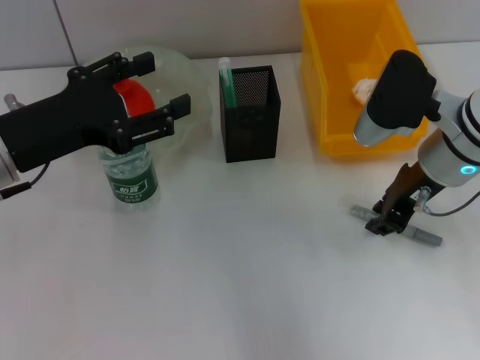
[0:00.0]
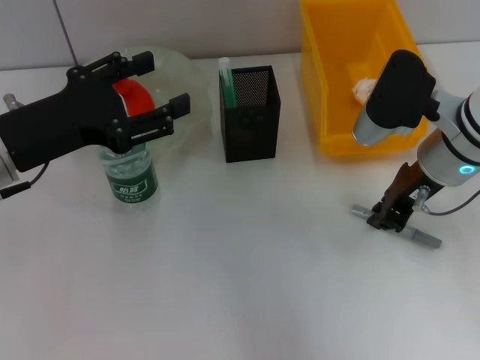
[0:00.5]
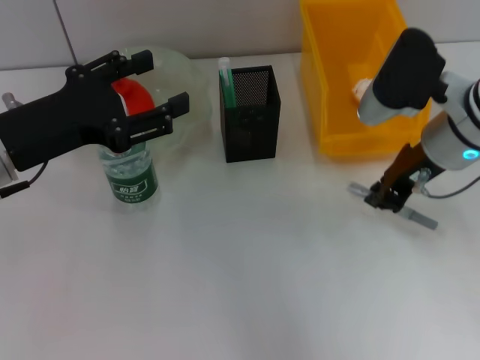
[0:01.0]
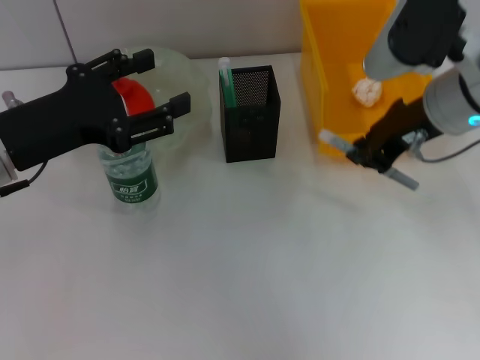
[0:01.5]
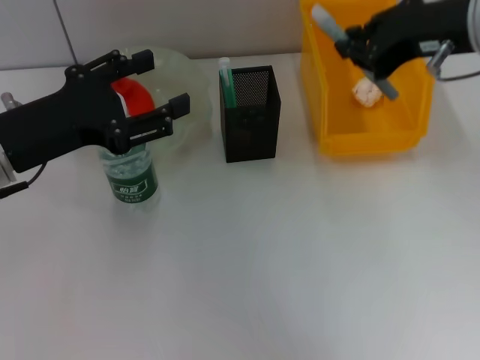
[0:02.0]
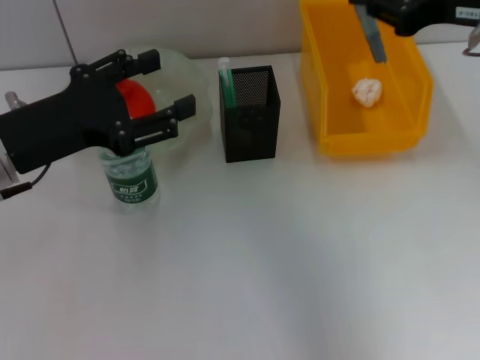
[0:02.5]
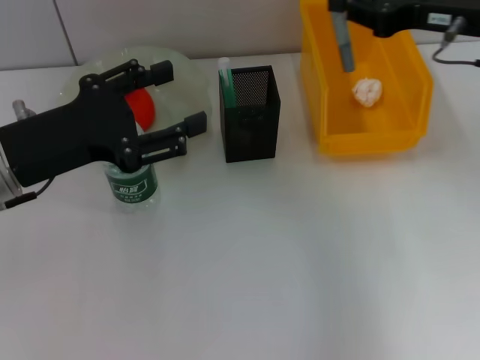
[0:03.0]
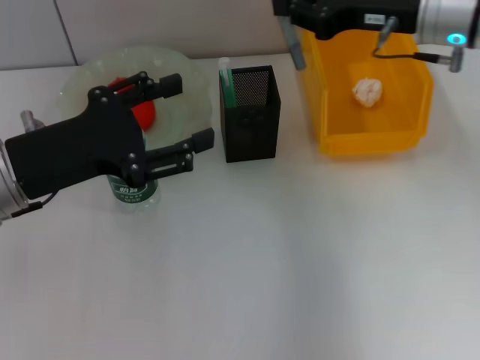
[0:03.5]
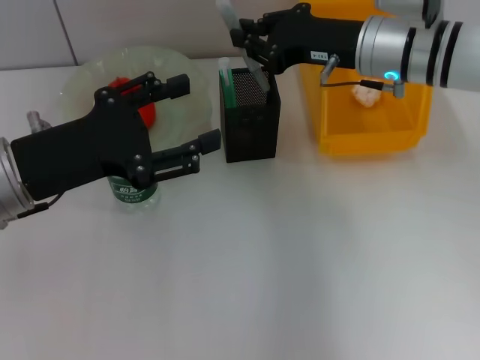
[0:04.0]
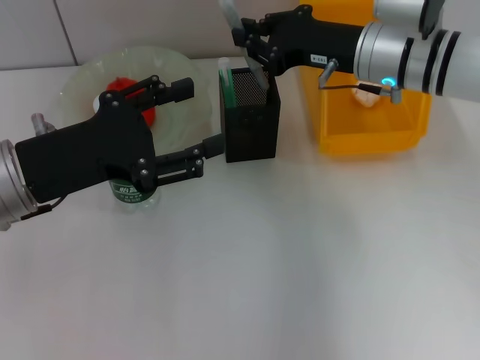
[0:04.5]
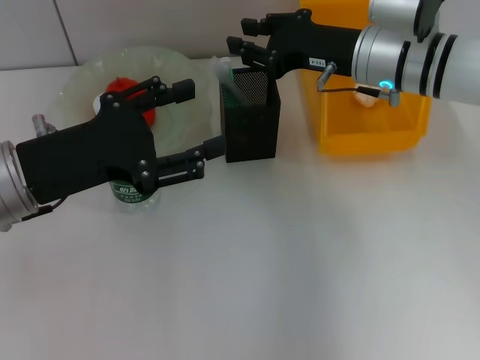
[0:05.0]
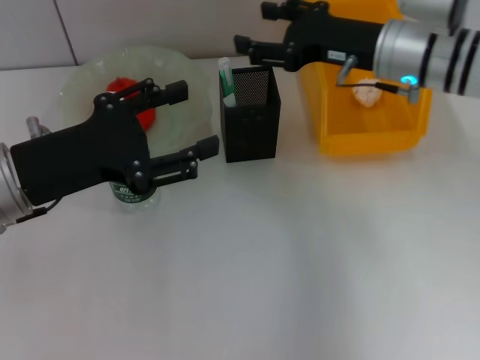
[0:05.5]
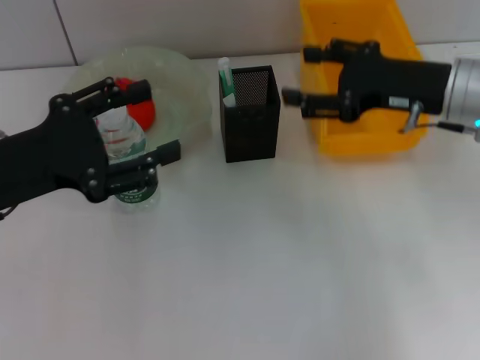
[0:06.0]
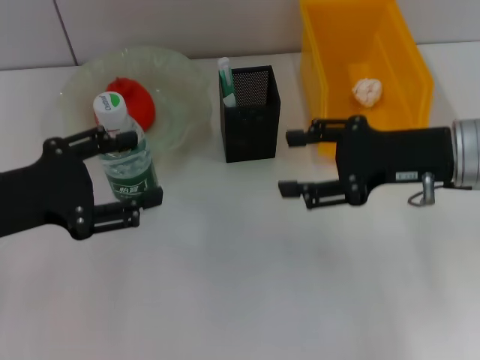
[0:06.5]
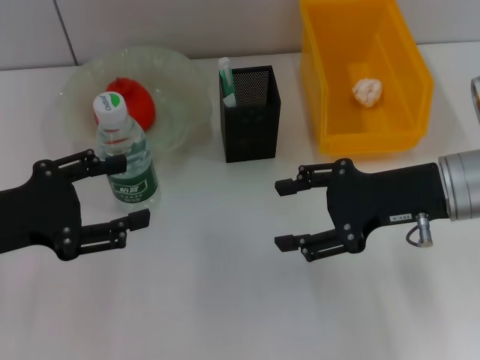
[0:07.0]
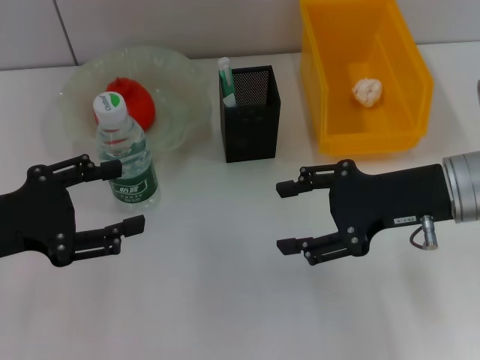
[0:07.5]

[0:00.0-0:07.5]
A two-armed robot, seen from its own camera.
Step, 0:01.0 to 0:05.0: Place the gray glue into the pen holder with the right hand.
0:00.0 to 0:02.0: The right gripper shifts about 15 cm upward.
0:02.0 to 0:04.0: The right gripper heads downward and forward, covering some 15 cm.
0:04.0 to 0:05.5: The right gripper opens up.
0:05.5 to 0:07.5: The right gripper moves backward, some 10 cm, while the left gripper travels to the left by roughly 5 cm.

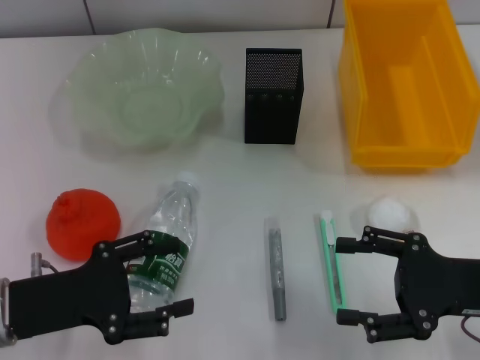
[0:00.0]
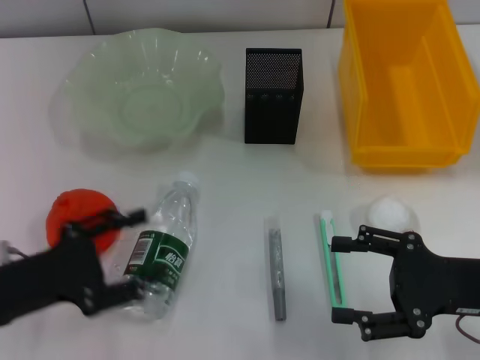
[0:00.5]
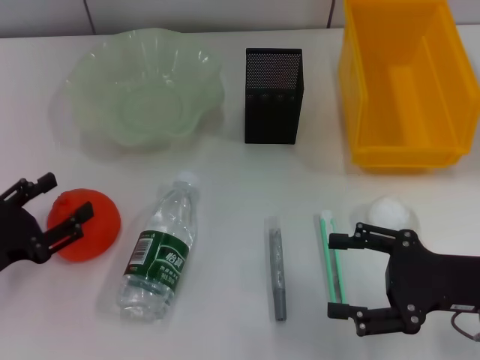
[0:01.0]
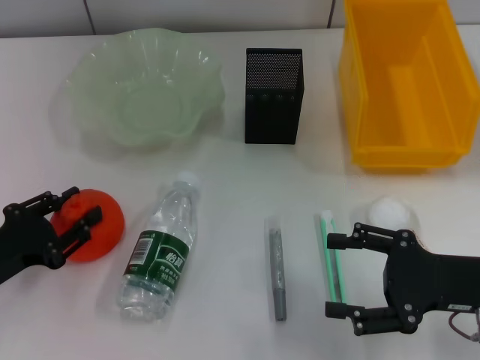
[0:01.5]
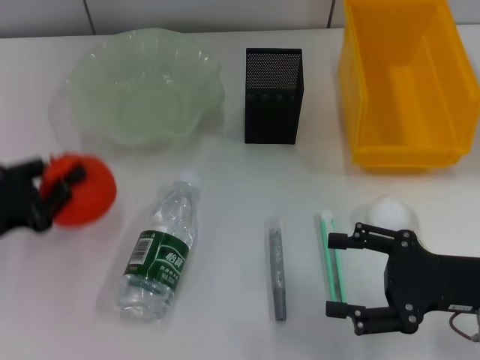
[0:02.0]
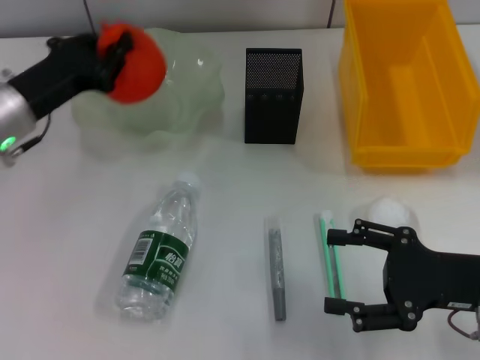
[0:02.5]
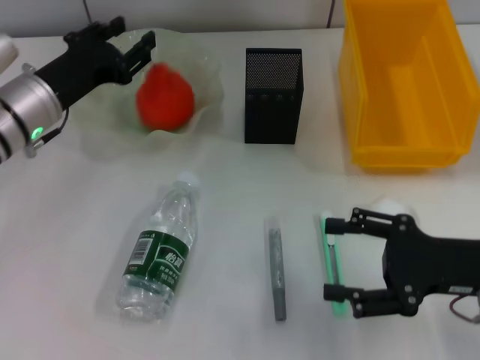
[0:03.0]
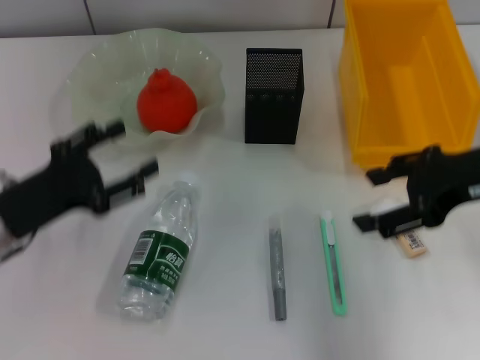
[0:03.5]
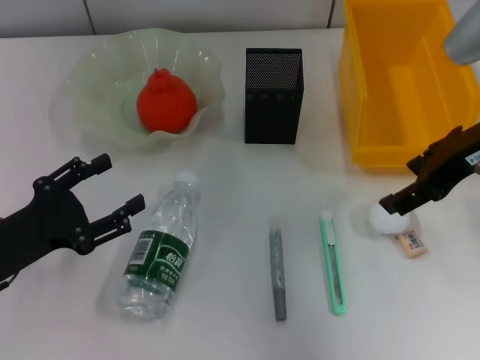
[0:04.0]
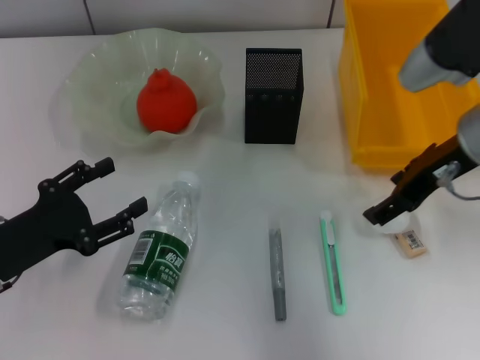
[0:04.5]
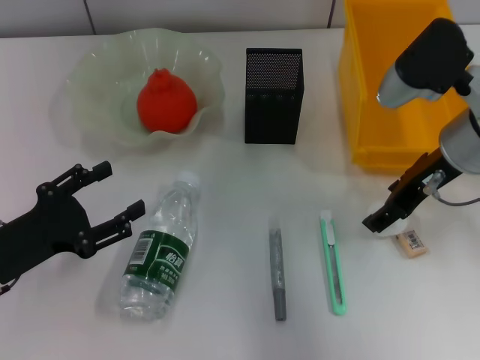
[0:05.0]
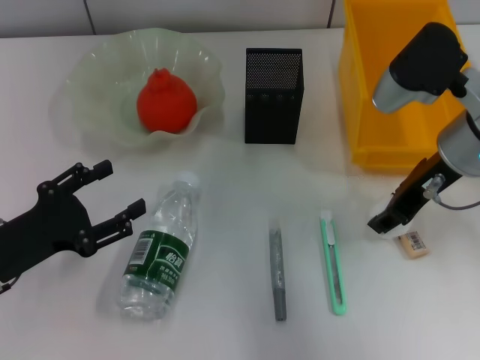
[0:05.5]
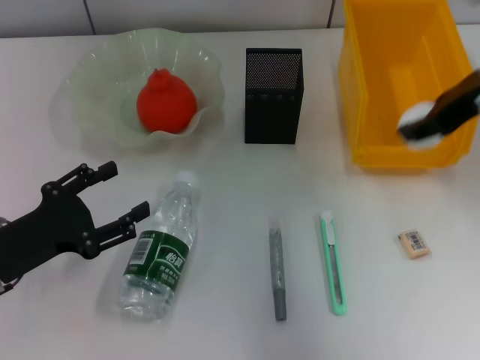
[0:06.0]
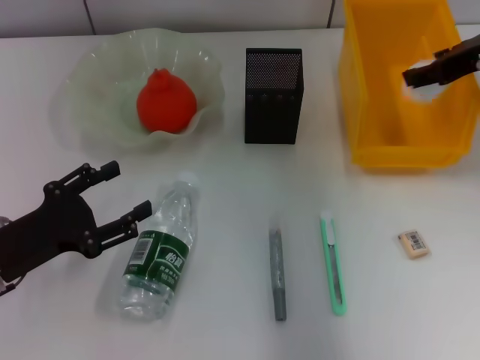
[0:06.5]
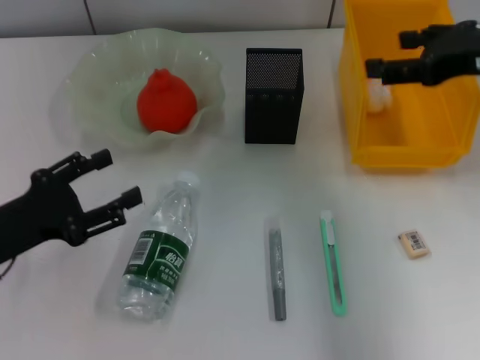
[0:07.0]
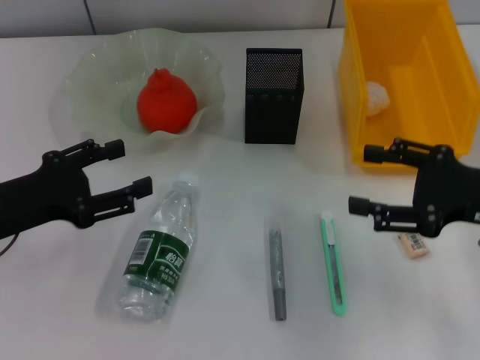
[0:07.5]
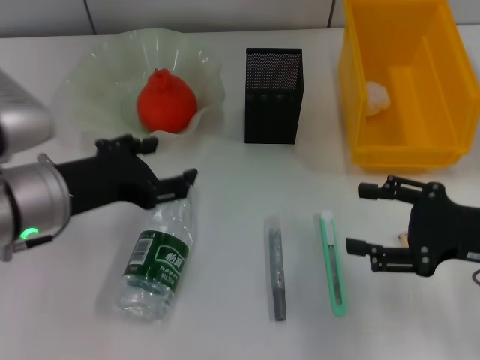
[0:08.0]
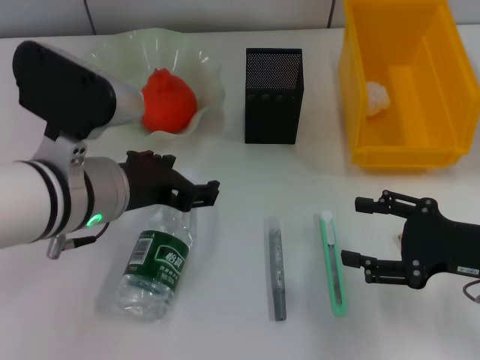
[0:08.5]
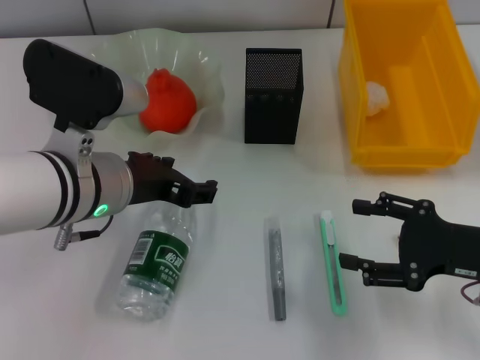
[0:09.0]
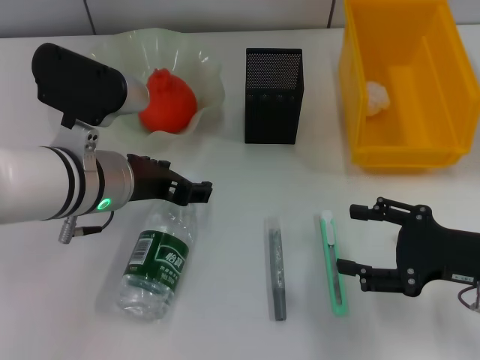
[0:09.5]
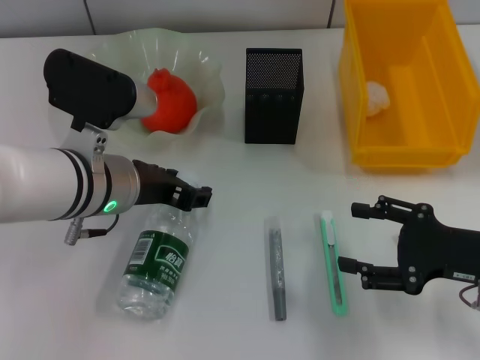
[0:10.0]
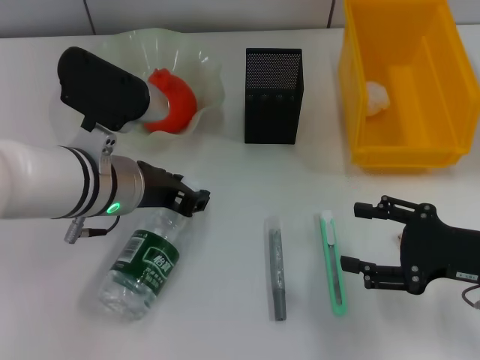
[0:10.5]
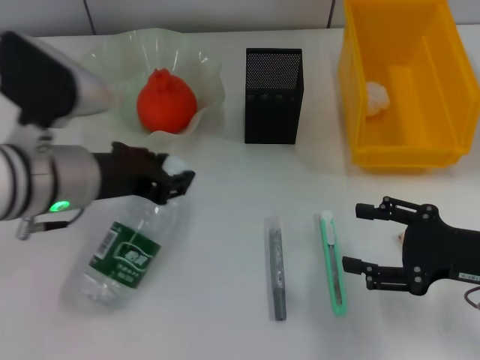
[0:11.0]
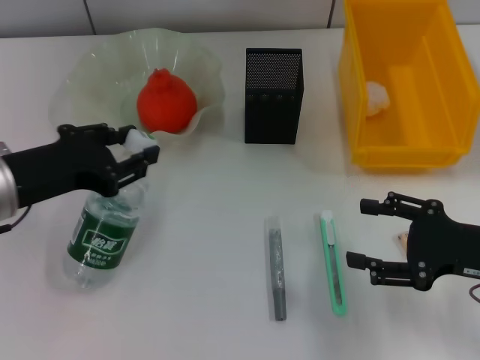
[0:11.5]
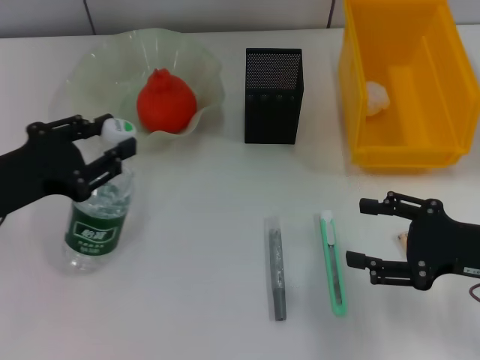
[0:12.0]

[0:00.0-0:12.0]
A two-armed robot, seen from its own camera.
Step, 0:00.0 to 0:01.5: Grab the orange with the left hand.
Step, 0:02.0 to 0:03.5: Place the orange into the fruit bowl with the left hand.
Step, 0:04.0 to 0:05.0: Grab the paper ball with the right hand.
Step, 0:05.5 to 0:07.0: Place the paper ball into the trash can with the right hand.
Step, 0:07.5 to 0:10.5: Grab the water bottle with the left hand.
0:00.0 to 0:02.0: The left gripper is displaced to the left by roughly 5 cm, and closes its fingers.
0:02.0 to 0:04.0: The right gripper heads upward and forward, covering some 20 cm; the left gripper travels forward and back again, some 15 cm each way, and opens its fingers.
0:04.0 to 0:06.0: The right gripper goes downward and returns, approximately 5 cm each way, and closes up.
0:06.0 to 0:08.0: The left gripper moves upward and to the right, approximately 10 cm. The right gripper shifts about 20 cm downward and backward, and opens up.
0:08.0 to 0:10.0: The left gripper moves to the right, approximately 5 cm.
0:10.0 to 0:12.0: The left gripper shifts approximately 15 cm to the left, and closes.

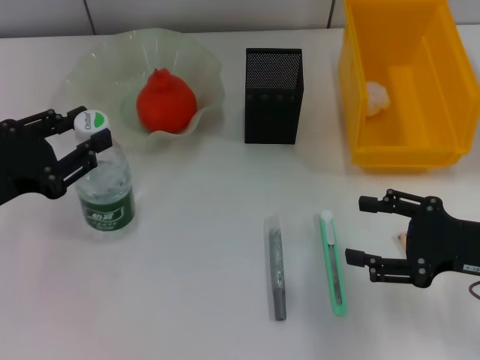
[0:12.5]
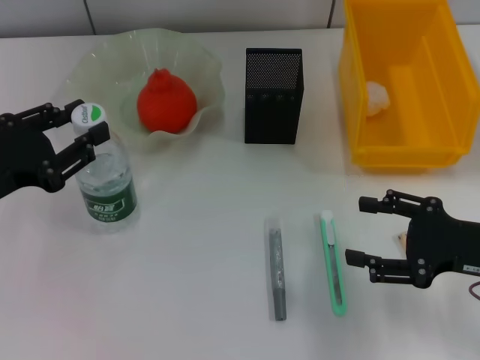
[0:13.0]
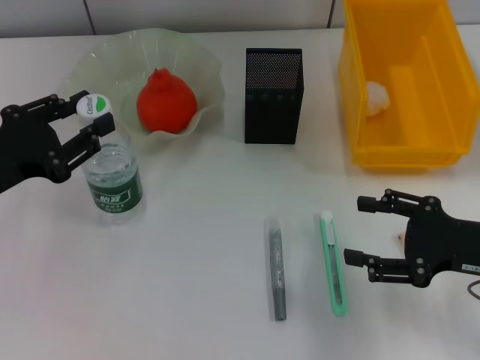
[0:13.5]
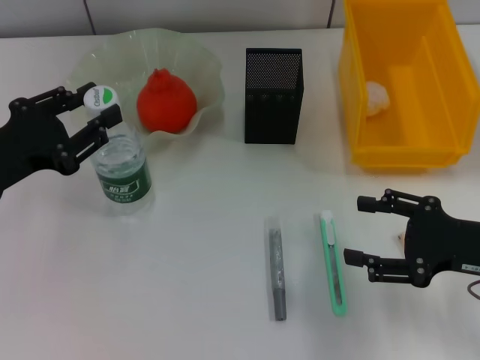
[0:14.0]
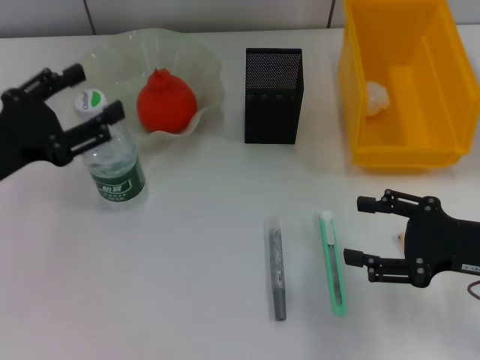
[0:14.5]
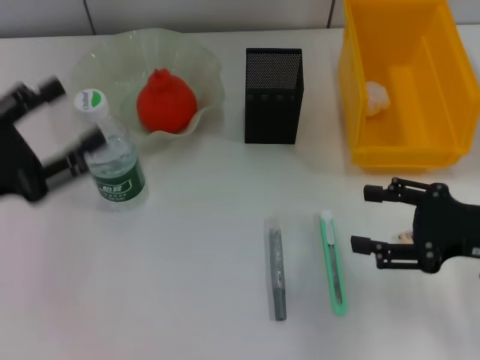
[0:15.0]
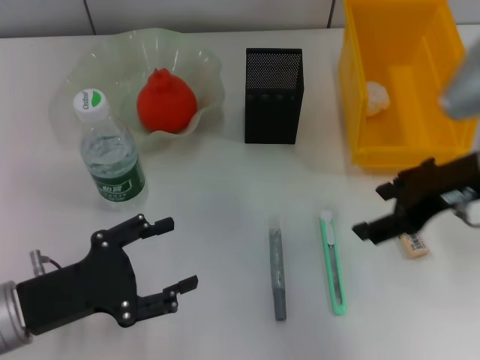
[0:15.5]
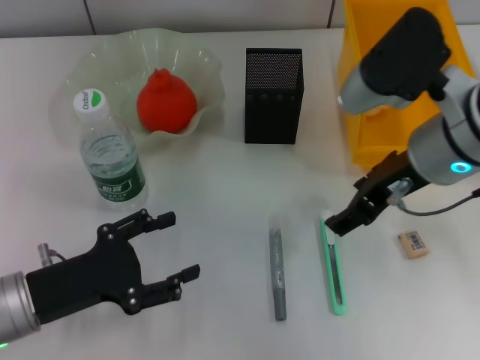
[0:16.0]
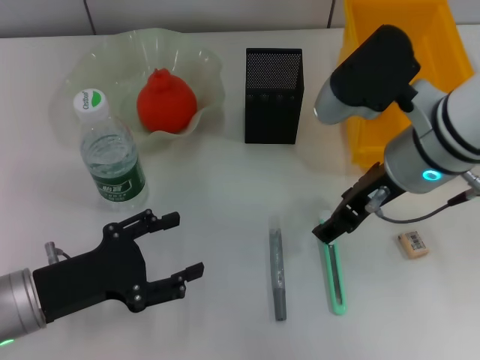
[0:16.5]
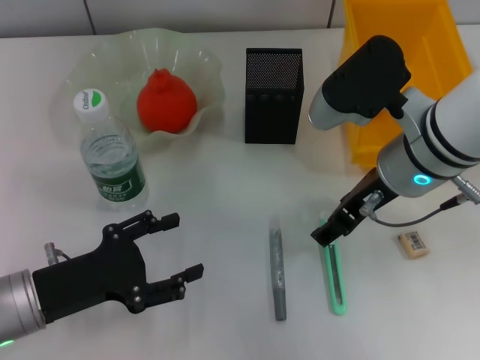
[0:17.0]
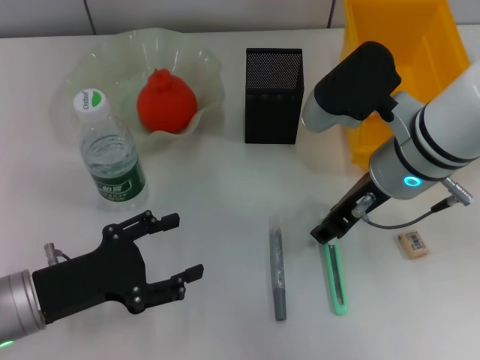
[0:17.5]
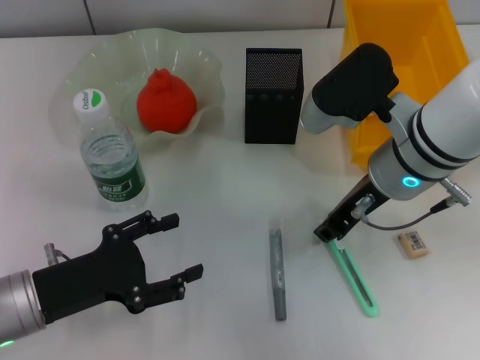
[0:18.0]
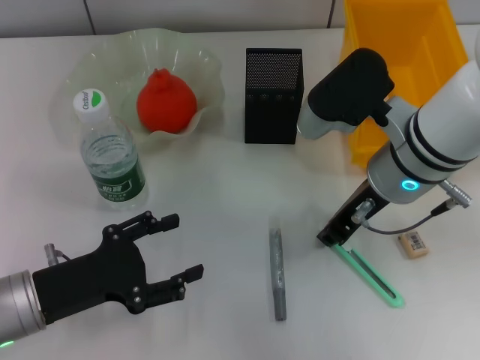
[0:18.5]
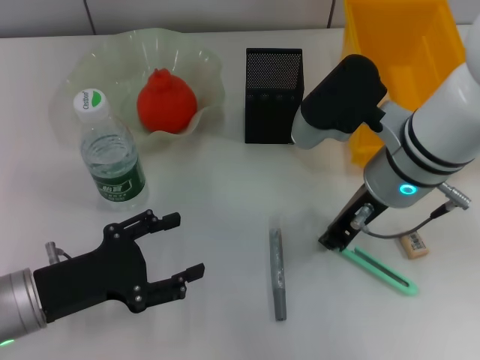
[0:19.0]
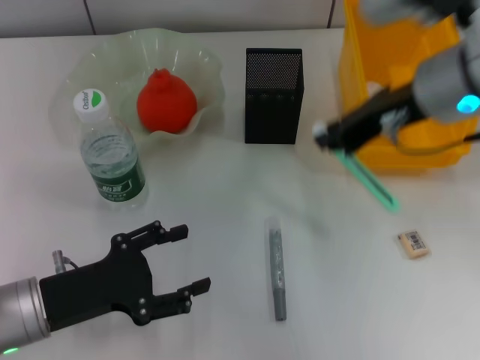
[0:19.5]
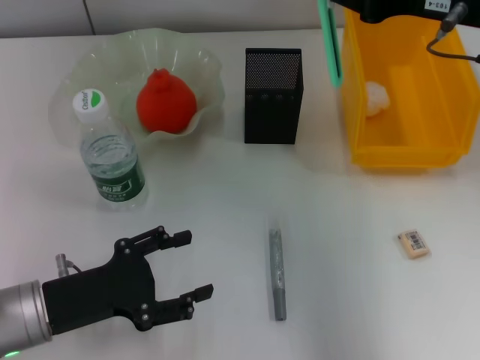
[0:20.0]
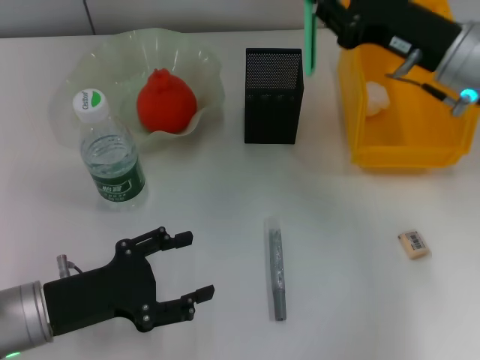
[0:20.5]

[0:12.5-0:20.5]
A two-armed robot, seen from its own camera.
Step, 0:12.5 to 0:14.5: Place the water bottle on the table with the left hand.
Step, 0:15.0 to 0:18.0: Grab the blue utility knife with the right hand.
0:12.5 to 0:14.5: The left gripper opens.
0:14.5 to 0:16.5: The right gripper is displaced to the left, upward and forward by about 20 cm, while the left gripper travels downward and backward by some 10 cm.
0:16.5 to 0:18.5: The right gripper closes.
0:18.5 to 0:20.5: The right gripper heads to the right, covering roughly 10 cm, and travels upward and back again, about 10 cm each way.
